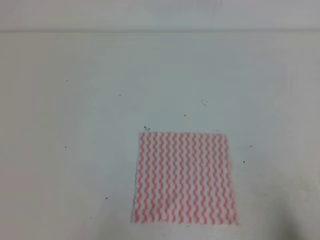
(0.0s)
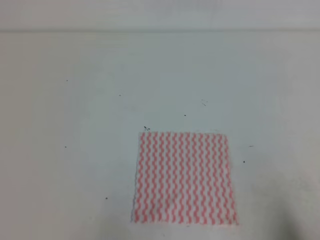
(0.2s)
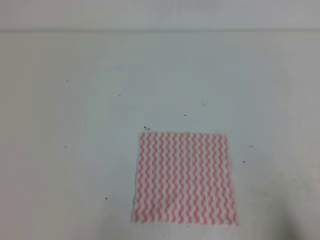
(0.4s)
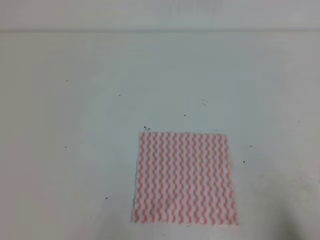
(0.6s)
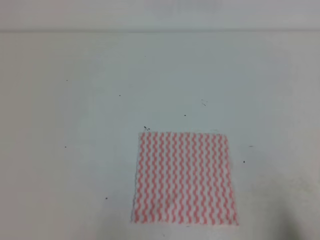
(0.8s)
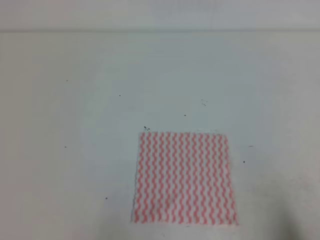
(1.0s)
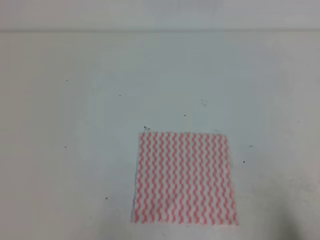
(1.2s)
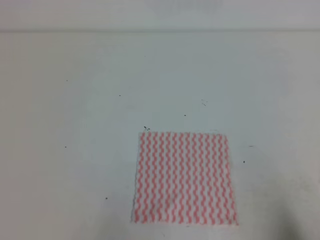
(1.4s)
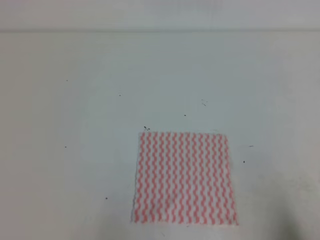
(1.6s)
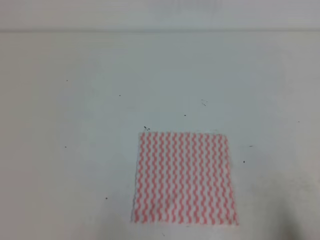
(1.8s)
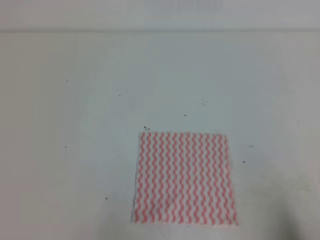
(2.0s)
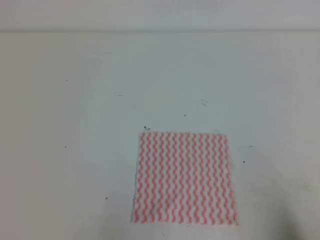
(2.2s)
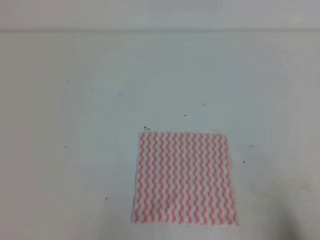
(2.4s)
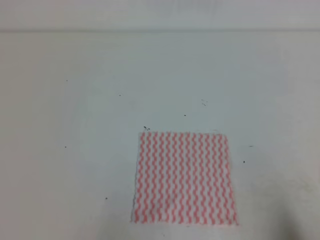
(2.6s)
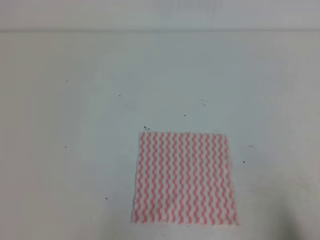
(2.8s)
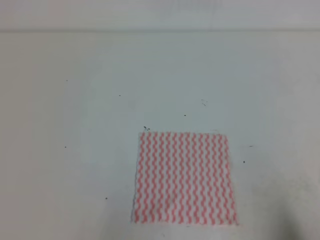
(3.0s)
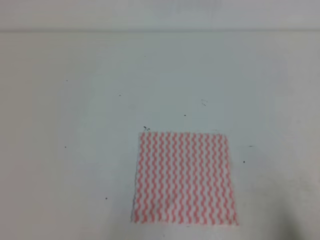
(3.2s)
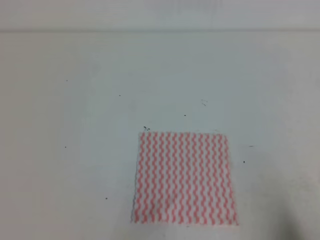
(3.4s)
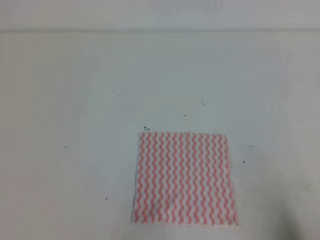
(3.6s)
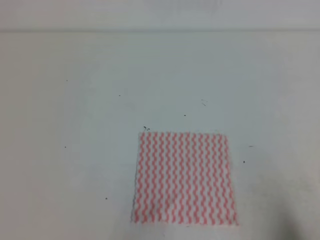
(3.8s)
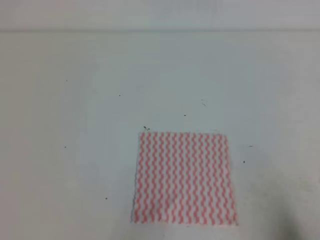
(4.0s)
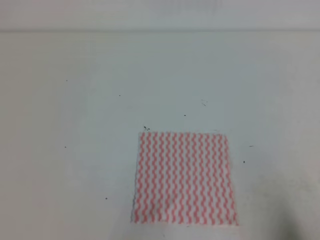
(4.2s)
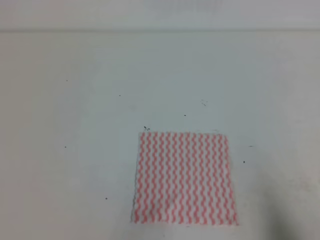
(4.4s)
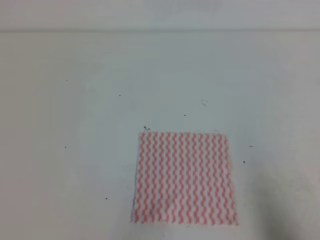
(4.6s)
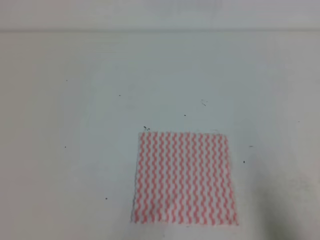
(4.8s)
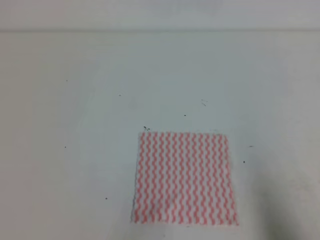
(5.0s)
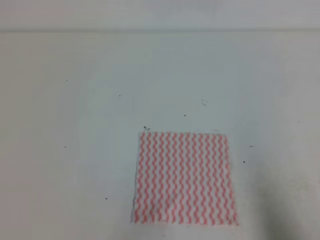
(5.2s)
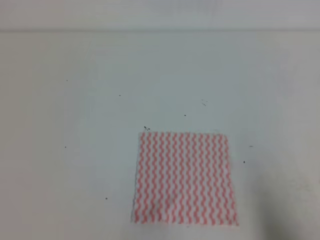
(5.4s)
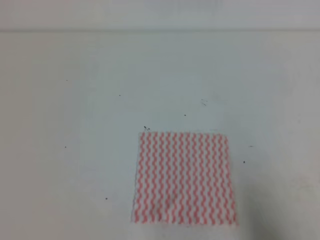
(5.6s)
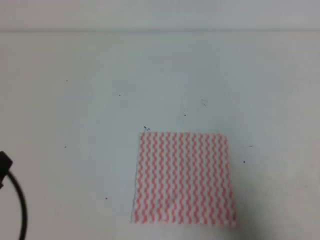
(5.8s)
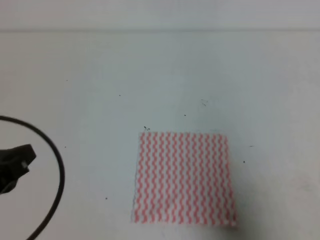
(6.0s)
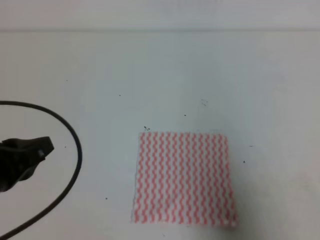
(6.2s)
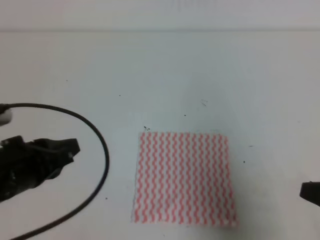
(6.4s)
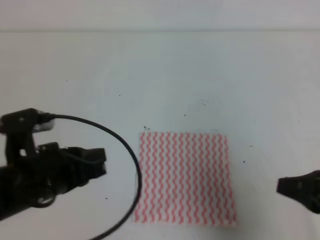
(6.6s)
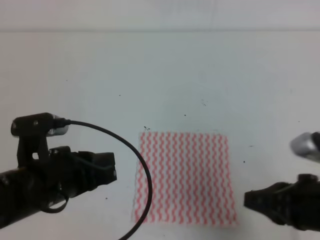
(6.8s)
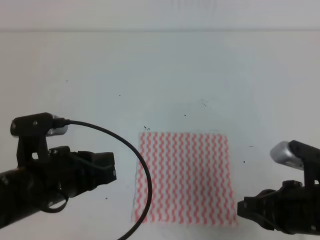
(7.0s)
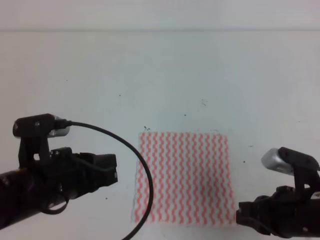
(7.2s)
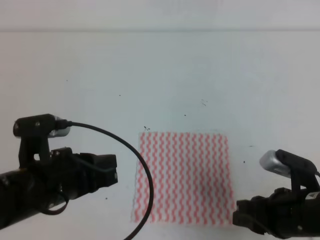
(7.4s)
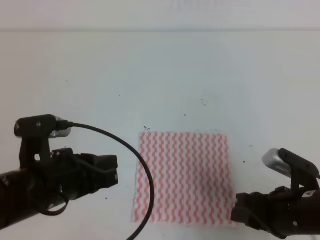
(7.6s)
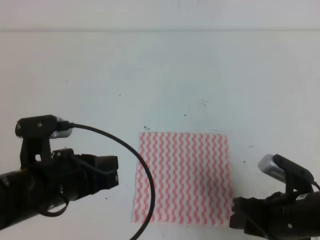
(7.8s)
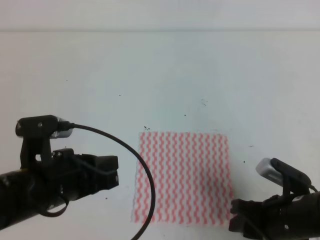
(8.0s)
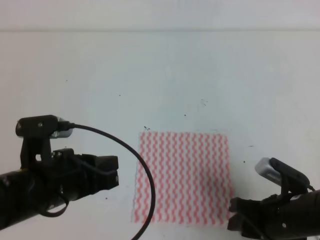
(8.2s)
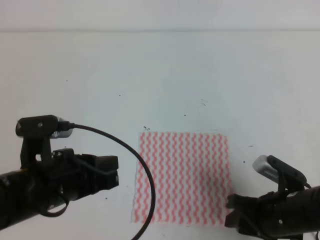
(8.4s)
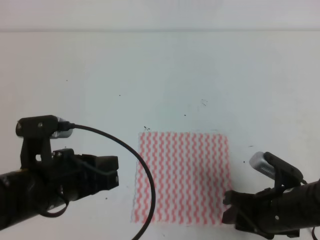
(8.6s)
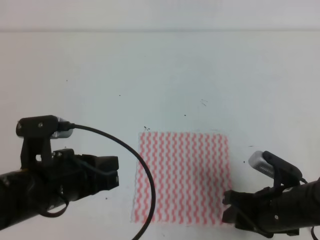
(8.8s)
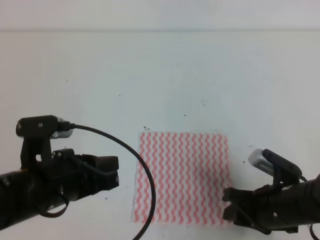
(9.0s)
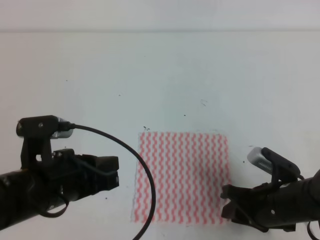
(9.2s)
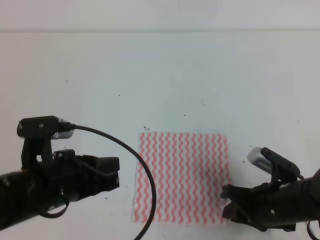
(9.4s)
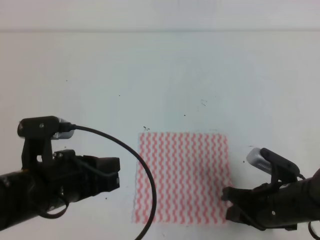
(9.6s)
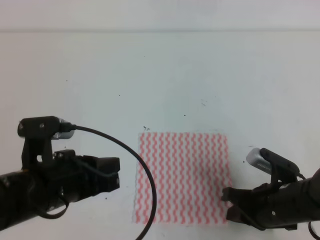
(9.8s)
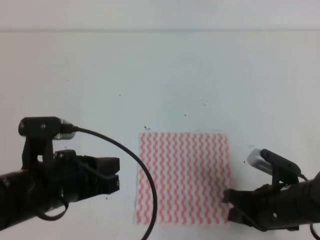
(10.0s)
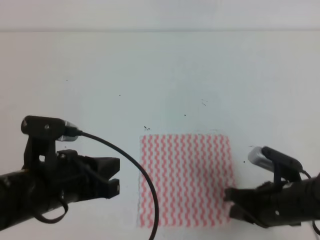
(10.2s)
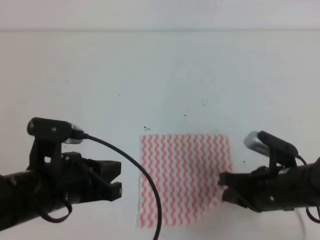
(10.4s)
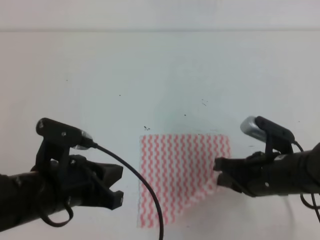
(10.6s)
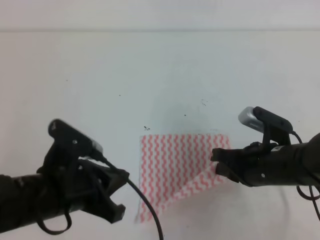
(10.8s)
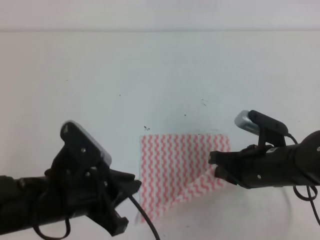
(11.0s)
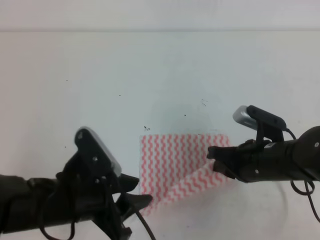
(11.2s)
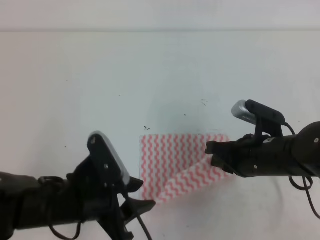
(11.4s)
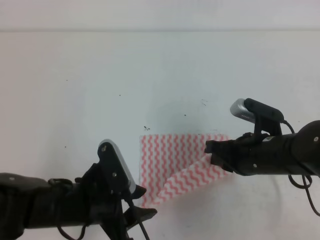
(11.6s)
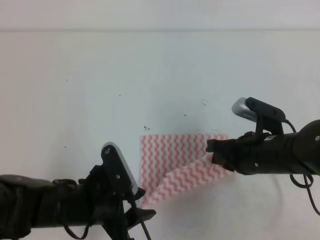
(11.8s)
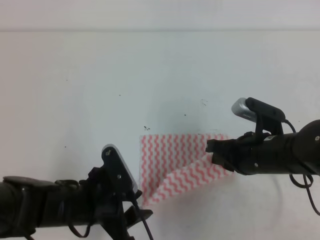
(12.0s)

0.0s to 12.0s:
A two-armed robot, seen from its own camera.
0.0s to 3.0s: Both grippers stay put.
4.4s to 6.0s: The right gripper travels upward by approximately 10 cm. Meanwhile the left gripper is displaced upward and forward by some 10 cm.
6.0s to 7.6s: The right gripper is displaced to the left, downward and forward by roughly 15 cm, and opens, while the left gripper heads to the right, covering approximately 10 cm.
7.6s to 9.0s: The grippers move only a little.
9.0s to 10.4s: The right gripper closes.
10.4s to 12.0s: The right gripper changes place by approximately 5 cm. Meanwhile the left gripper goes approximately 5 cm downward, and opens.

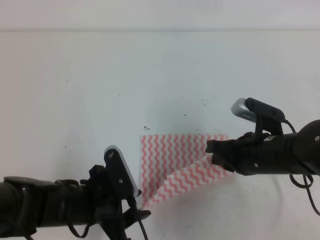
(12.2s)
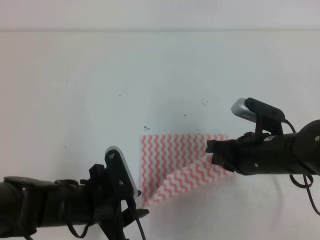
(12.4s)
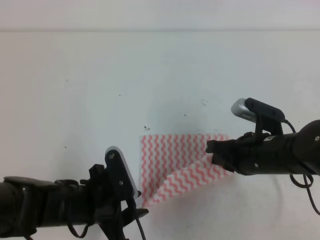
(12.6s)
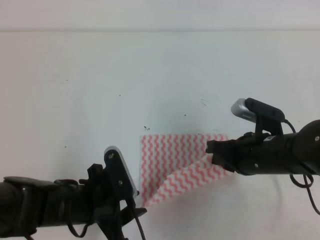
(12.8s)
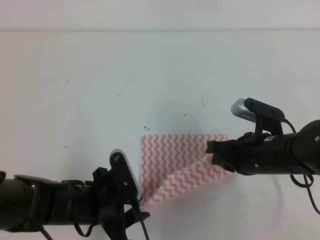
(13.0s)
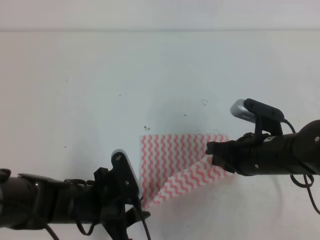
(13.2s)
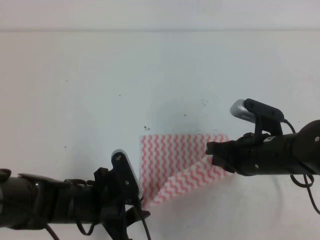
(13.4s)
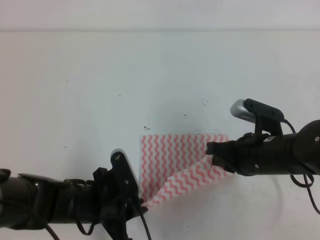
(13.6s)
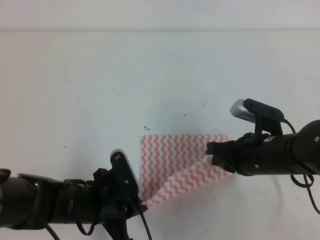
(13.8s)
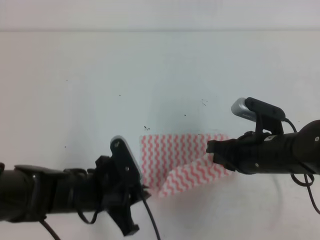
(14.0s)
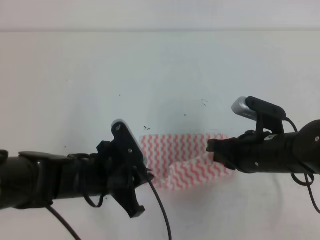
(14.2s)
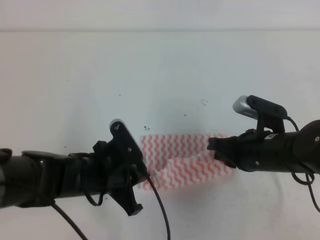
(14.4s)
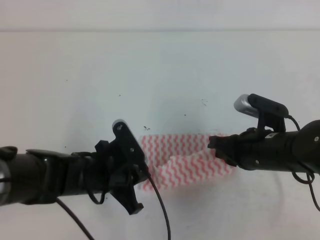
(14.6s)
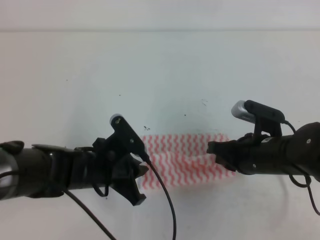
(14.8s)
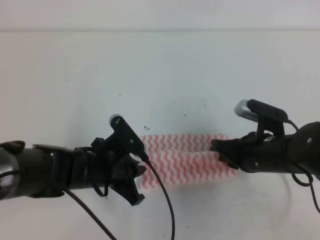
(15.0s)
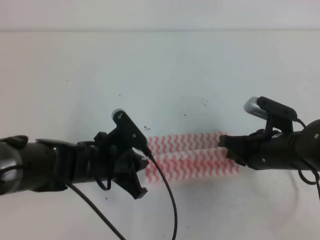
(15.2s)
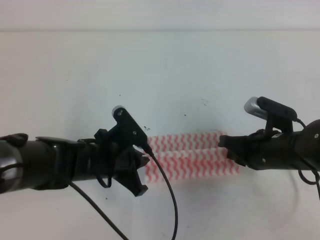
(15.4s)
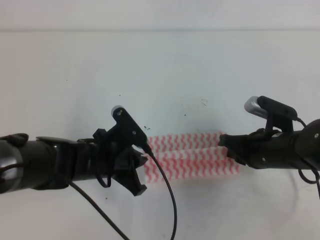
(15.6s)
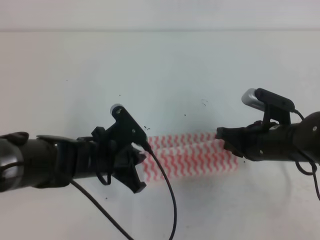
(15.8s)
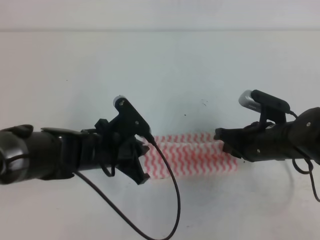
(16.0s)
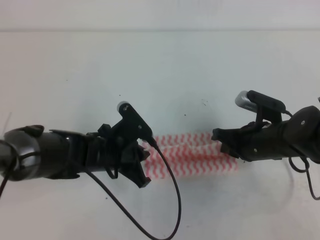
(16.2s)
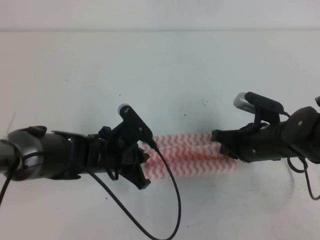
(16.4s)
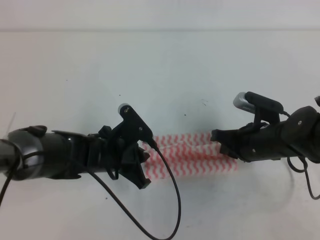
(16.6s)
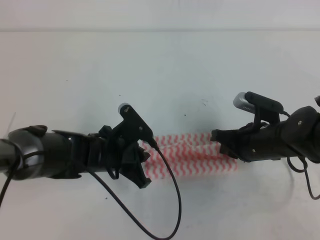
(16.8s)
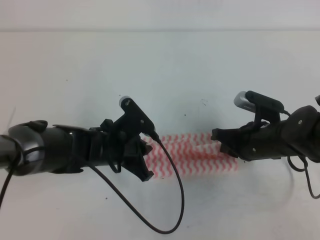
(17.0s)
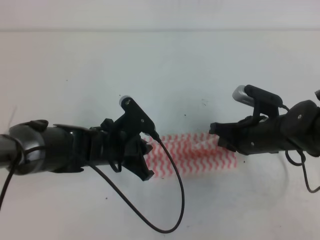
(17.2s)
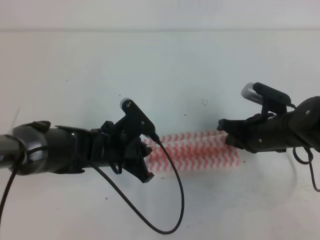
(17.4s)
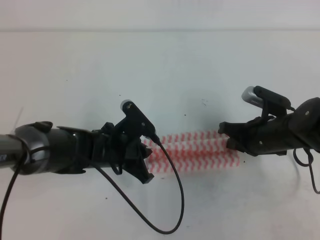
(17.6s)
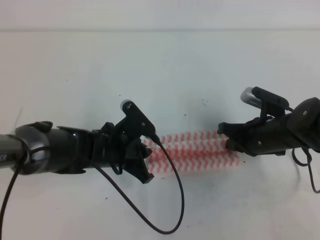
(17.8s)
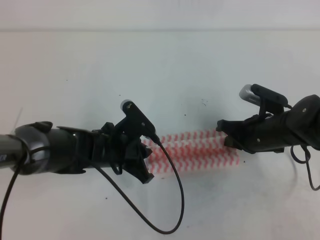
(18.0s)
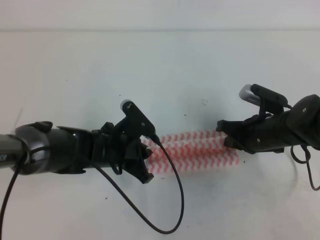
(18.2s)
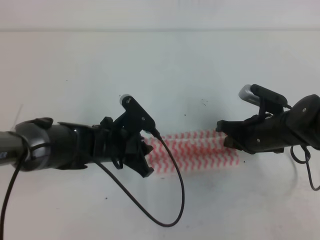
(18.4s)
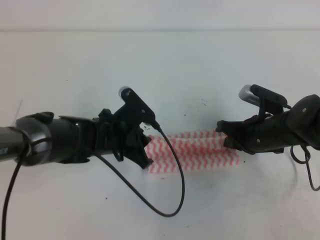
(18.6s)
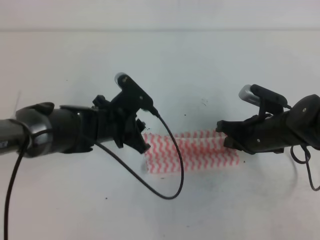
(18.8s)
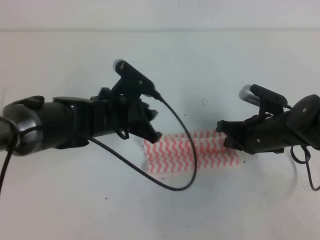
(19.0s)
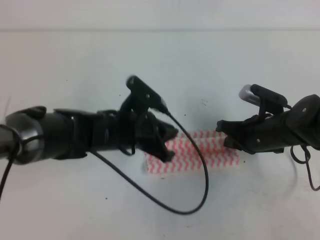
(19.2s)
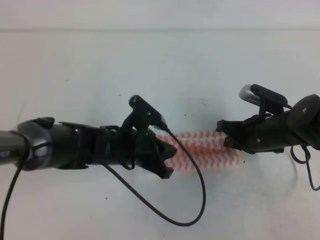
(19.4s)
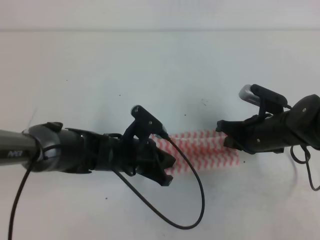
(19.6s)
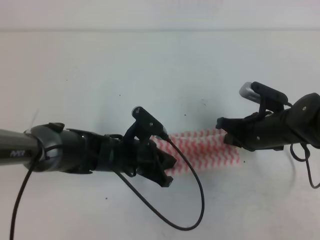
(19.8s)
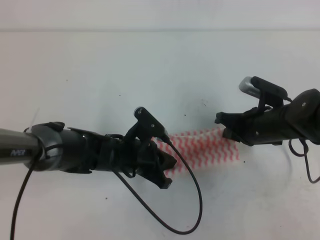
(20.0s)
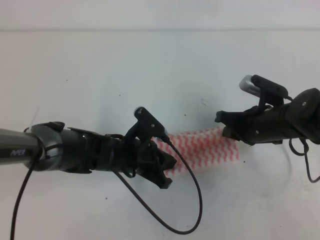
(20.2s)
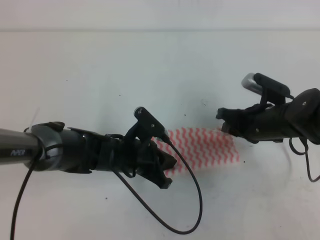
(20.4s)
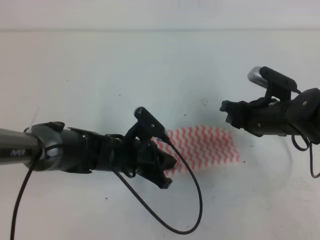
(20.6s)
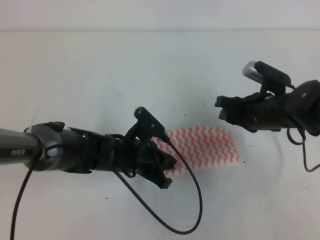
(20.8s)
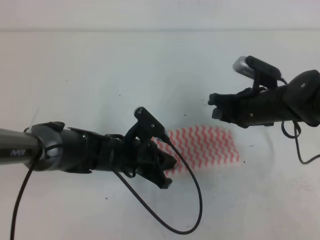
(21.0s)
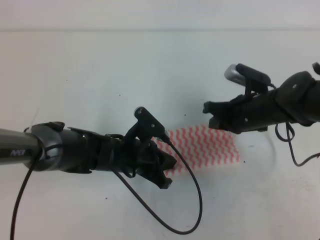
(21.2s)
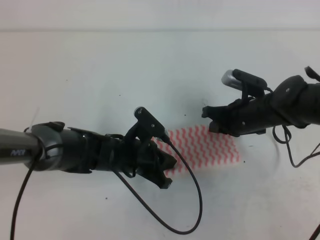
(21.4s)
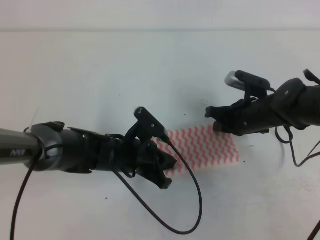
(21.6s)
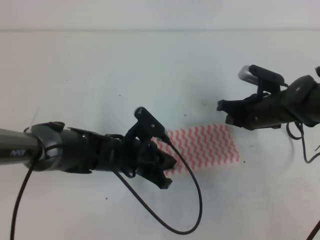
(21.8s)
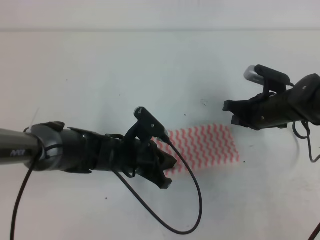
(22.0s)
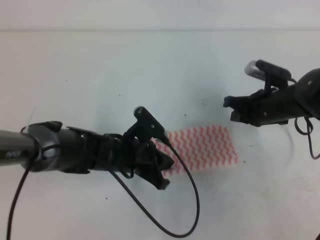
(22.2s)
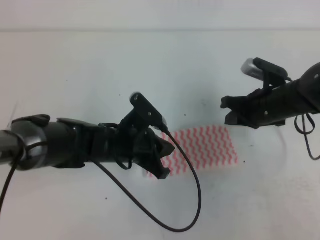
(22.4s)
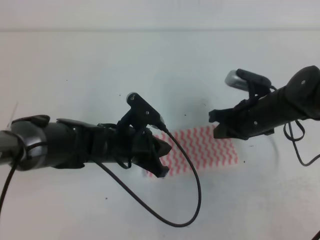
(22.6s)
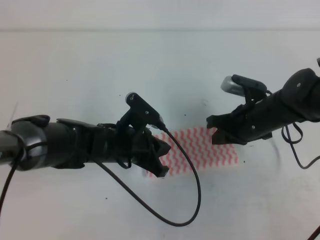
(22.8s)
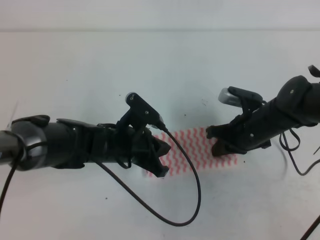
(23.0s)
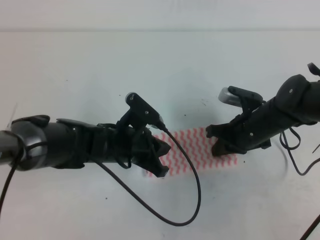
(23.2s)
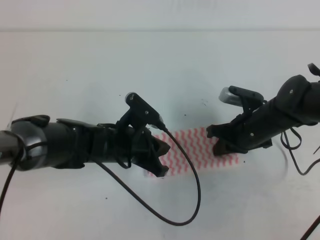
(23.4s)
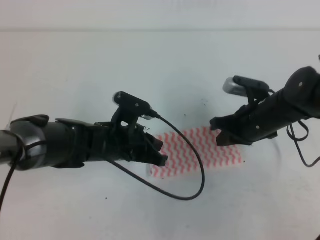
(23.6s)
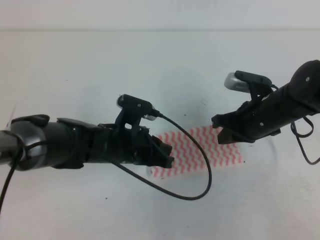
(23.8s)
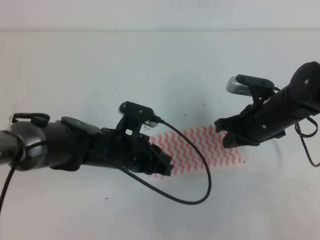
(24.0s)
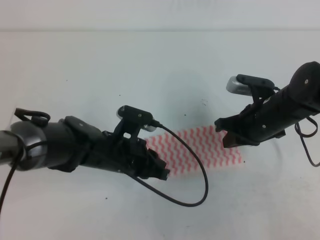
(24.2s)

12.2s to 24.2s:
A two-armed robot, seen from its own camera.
12.2s to 13.8s: The left gripper closes its fingers.
13.8s to 15.2s: The left gripper shifts roughly 5 cm forward.
15.2s to 18.2s: The grippers stay close to where they were, moving slightly.
18.2s to 19.8s: The left gripper opens, then closes once more.
19.8s to 21.2s: The right gripper opens and closes again.
21.2s to 22.6s: The grippers stay close to where they were, moving slightly.
